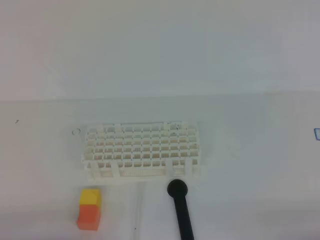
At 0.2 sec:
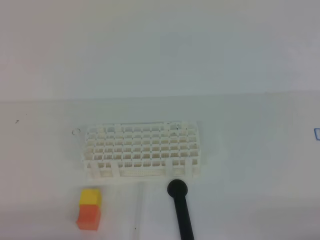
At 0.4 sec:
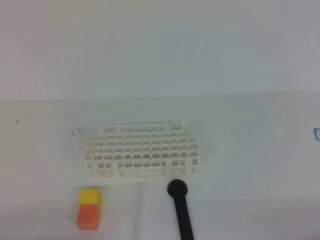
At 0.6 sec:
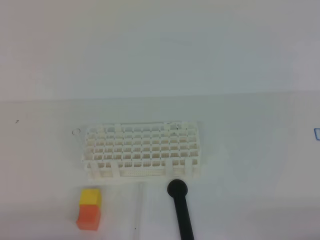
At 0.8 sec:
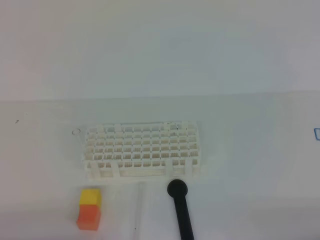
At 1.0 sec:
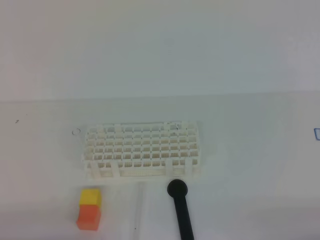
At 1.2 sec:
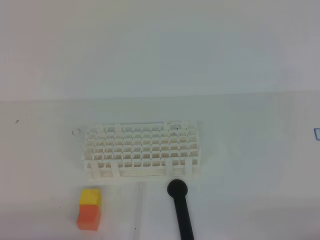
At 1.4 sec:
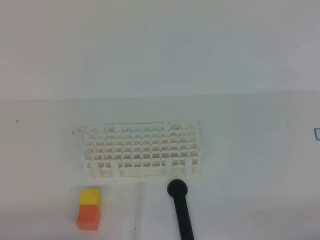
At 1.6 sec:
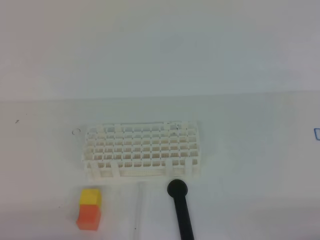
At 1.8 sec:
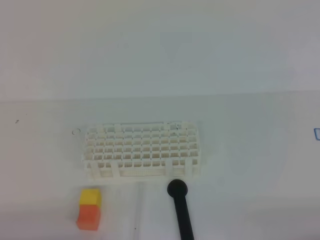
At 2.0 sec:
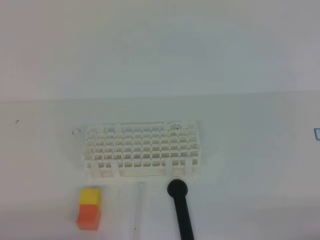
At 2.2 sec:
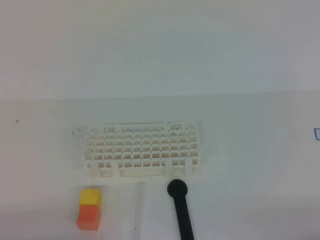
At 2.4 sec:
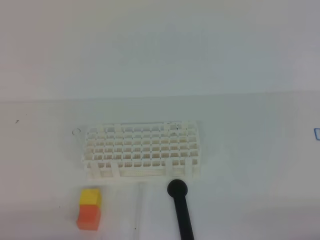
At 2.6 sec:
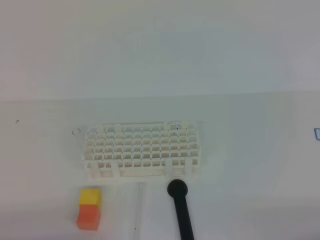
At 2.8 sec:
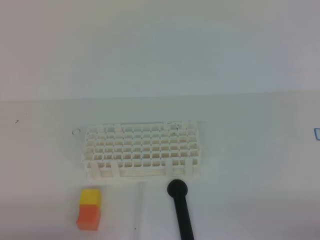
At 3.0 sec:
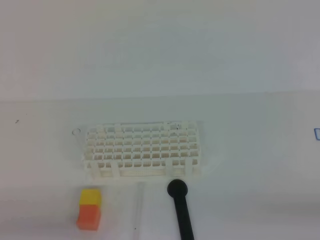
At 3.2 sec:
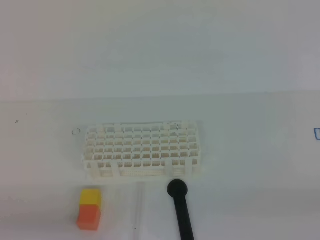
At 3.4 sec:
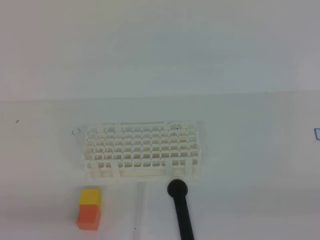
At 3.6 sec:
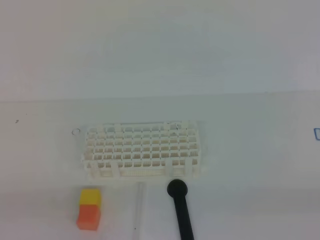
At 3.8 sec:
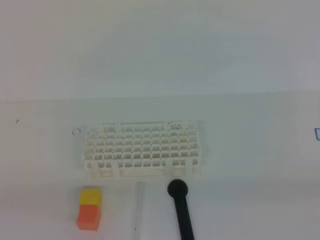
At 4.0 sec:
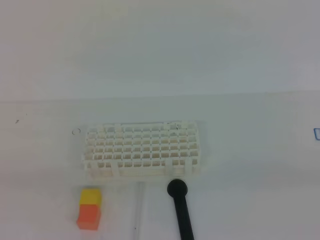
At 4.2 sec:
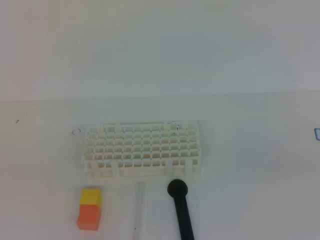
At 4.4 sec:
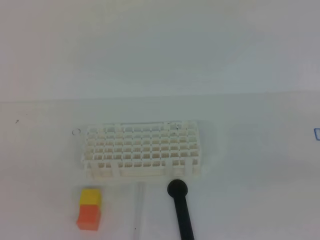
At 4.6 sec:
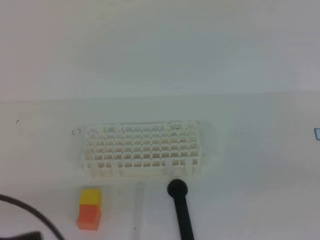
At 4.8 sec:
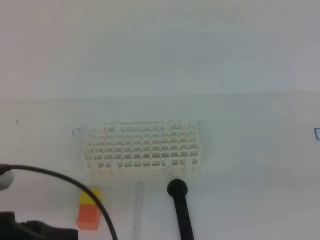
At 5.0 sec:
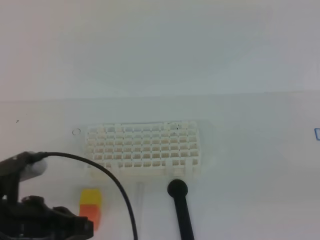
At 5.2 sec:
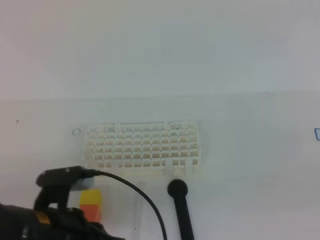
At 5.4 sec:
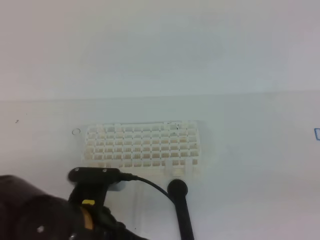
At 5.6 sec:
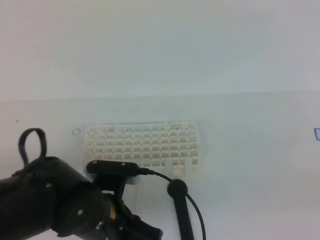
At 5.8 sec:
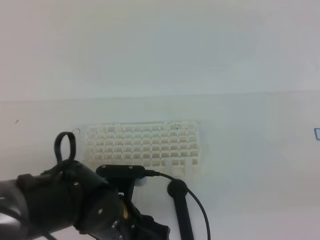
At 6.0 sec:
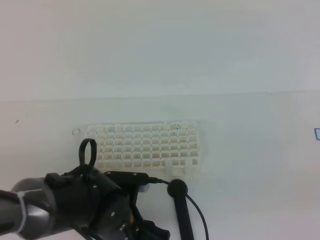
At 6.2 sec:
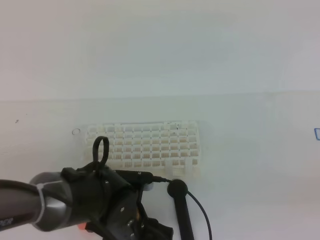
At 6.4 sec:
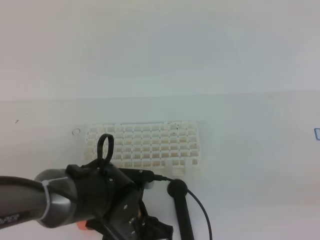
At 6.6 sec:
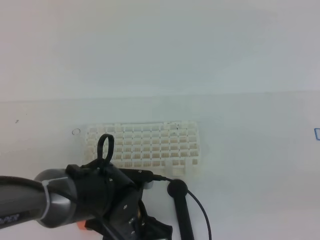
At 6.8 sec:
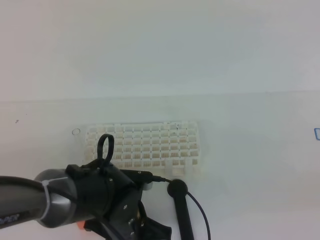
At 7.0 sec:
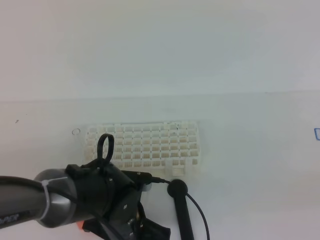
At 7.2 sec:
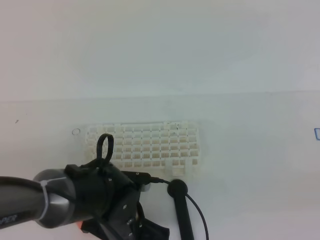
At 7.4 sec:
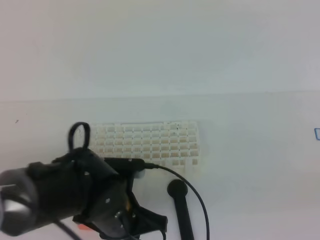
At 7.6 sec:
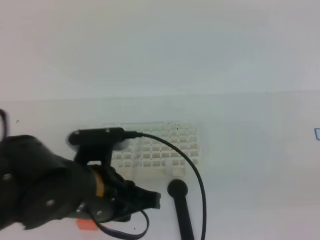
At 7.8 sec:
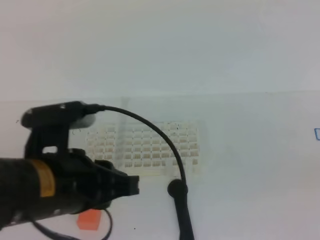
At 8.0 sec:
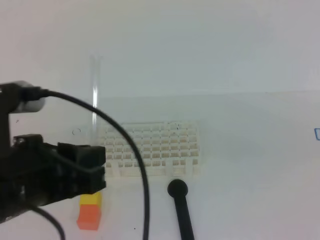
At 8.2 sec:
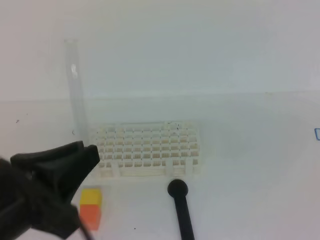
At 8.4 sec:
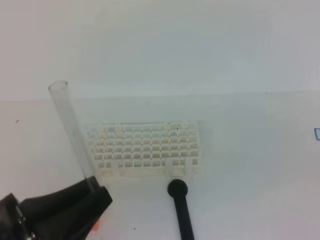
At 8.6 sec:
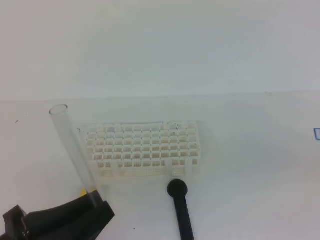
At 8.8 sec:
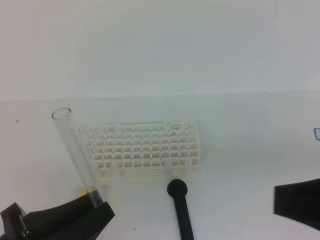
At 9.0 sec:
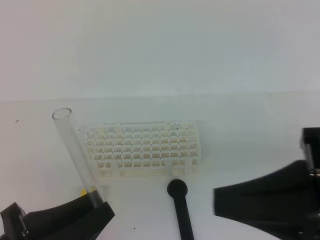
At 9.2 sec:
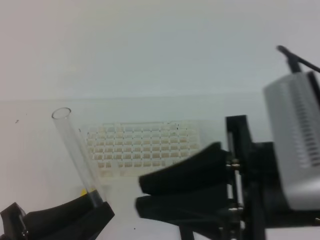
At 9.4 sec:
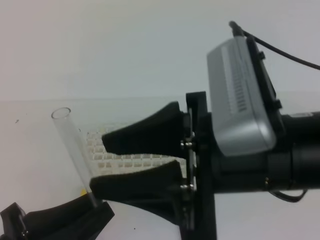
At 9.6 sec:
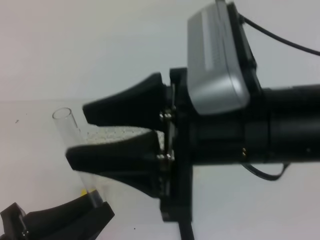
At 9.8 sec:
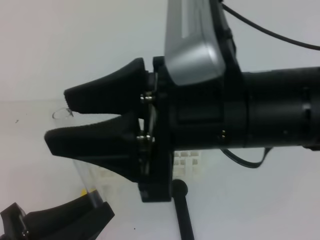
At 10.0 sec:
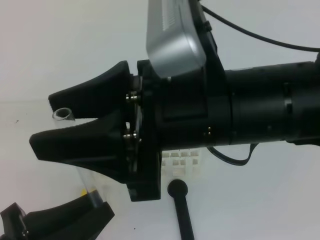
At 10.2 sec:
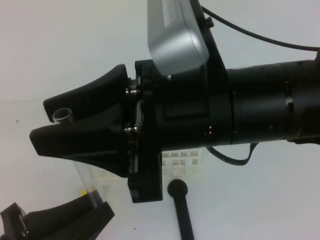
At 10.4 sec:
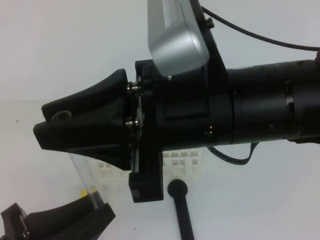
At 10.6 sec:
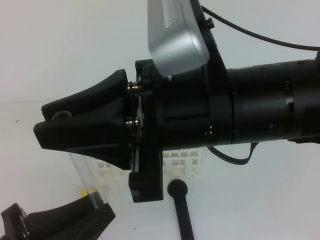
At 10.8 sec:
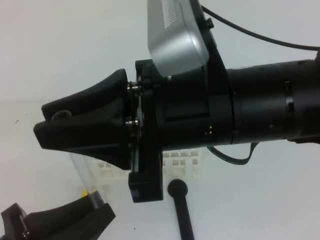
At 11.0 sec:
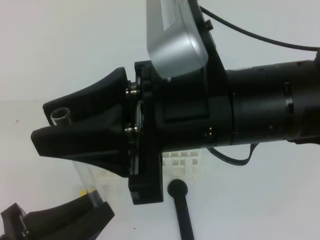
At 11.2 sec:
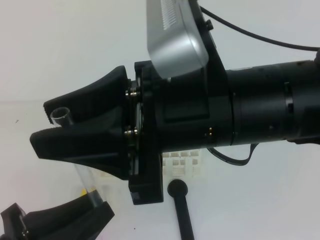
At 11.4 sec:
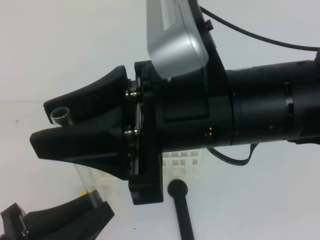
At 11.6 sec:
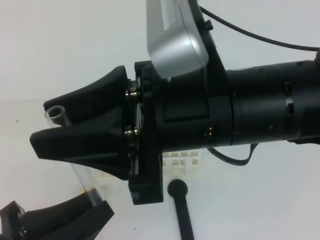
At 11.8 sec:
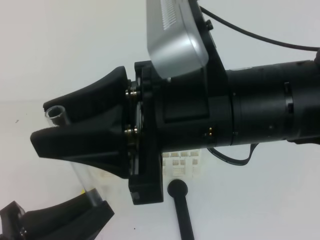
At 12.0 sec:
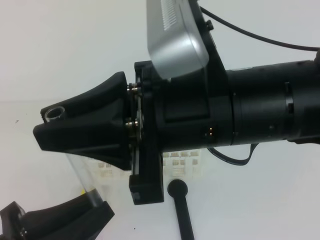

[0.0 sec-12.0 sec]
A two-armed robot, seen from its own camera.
4.4 sec to 6.0 sec: The left gripper is displaced to the right, downward and forward by approximately 30 cm, and opens.
6.0 sec to 7.6 sec: The left gripper moves upward, approximately 5 cm, and closes its fingers.
7.6 sec to 9.0 sec: The left gripper travels backward and to the left by roughly 15 cm, while the right gripper is displaced to the left by about 10 cm.
9.0 sec to 10.4 sec: The right gripper heads to the left and forward, covering roughly 20 cm, and opens up.
10.4 sec to 12.0 sec: Both grippers stay about where they are.

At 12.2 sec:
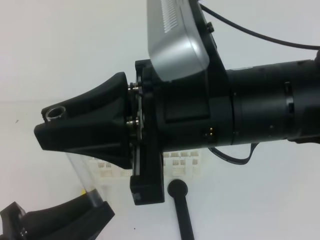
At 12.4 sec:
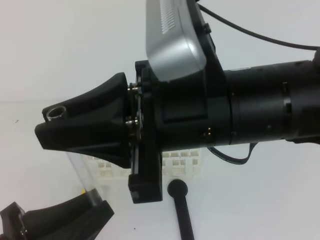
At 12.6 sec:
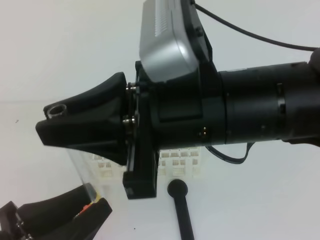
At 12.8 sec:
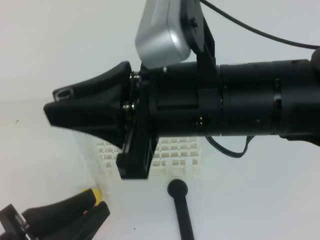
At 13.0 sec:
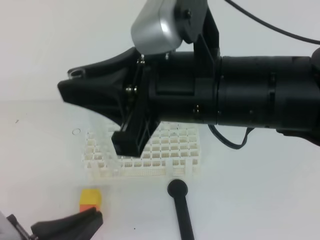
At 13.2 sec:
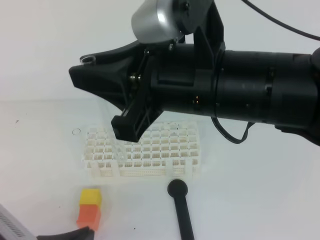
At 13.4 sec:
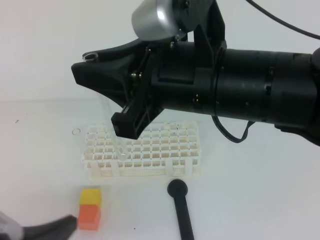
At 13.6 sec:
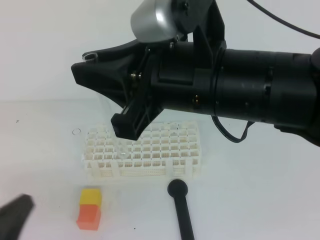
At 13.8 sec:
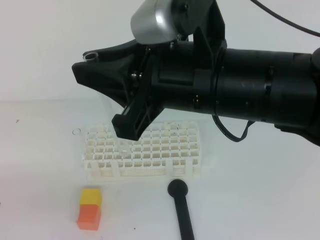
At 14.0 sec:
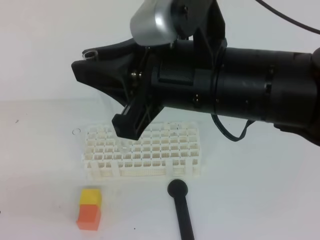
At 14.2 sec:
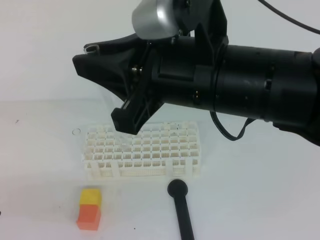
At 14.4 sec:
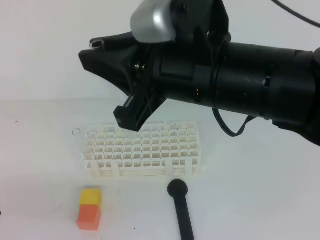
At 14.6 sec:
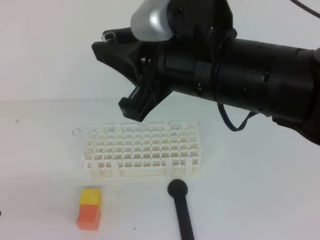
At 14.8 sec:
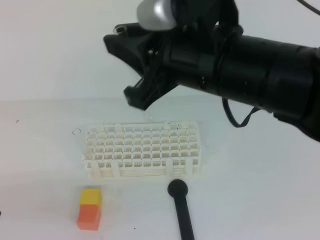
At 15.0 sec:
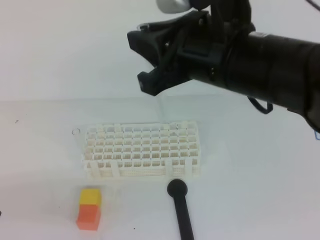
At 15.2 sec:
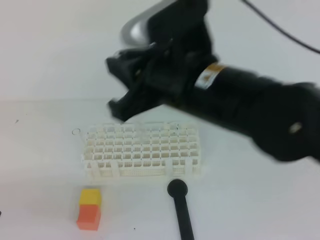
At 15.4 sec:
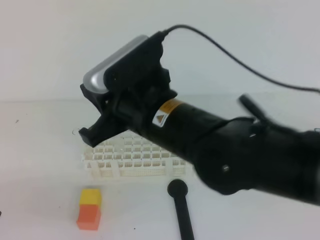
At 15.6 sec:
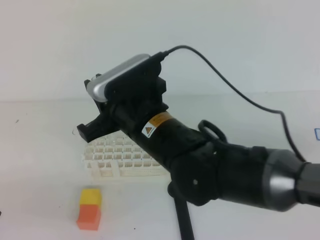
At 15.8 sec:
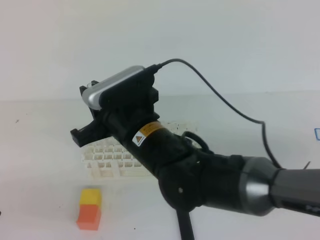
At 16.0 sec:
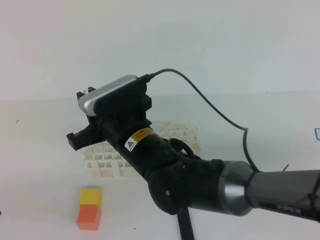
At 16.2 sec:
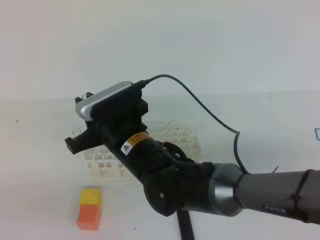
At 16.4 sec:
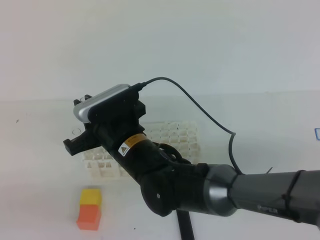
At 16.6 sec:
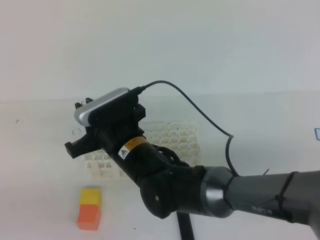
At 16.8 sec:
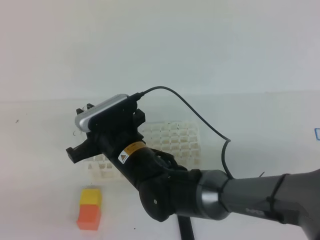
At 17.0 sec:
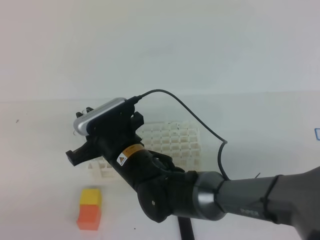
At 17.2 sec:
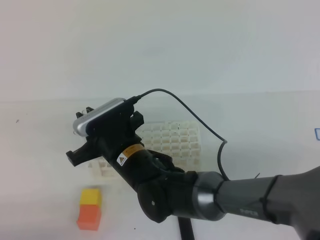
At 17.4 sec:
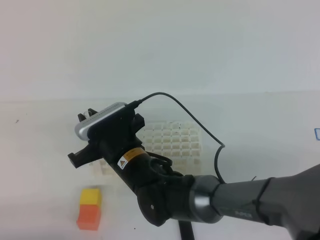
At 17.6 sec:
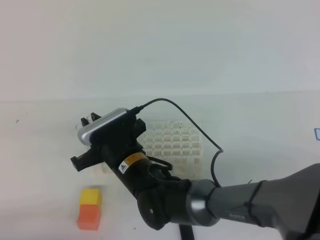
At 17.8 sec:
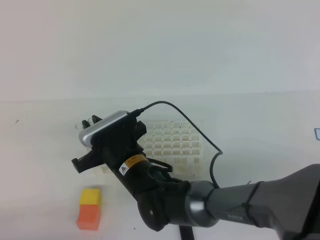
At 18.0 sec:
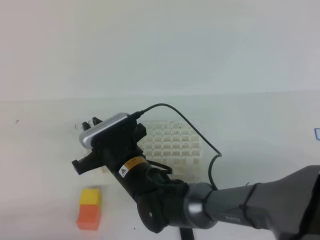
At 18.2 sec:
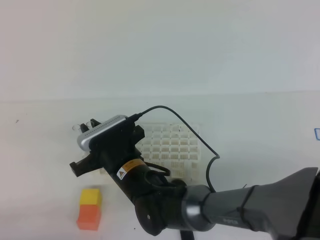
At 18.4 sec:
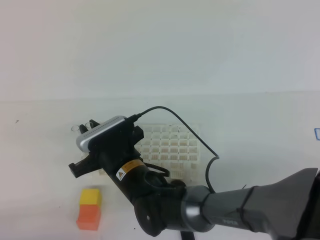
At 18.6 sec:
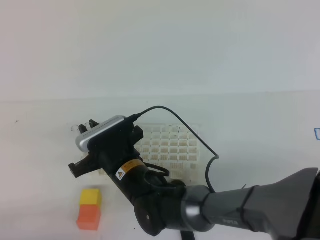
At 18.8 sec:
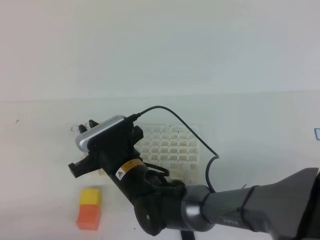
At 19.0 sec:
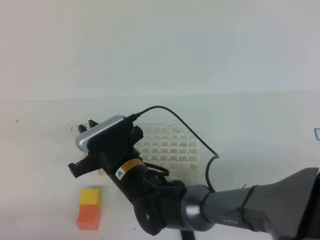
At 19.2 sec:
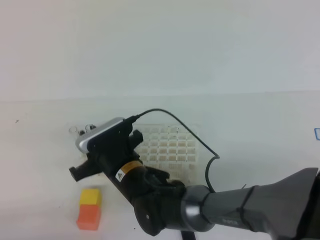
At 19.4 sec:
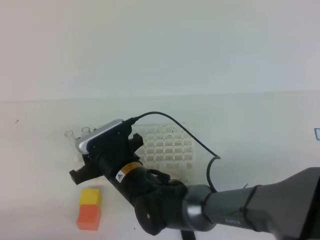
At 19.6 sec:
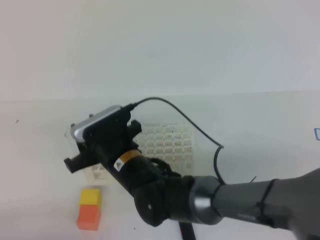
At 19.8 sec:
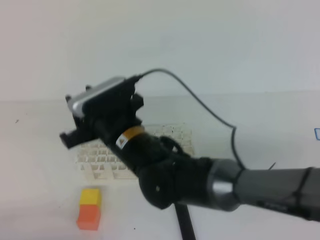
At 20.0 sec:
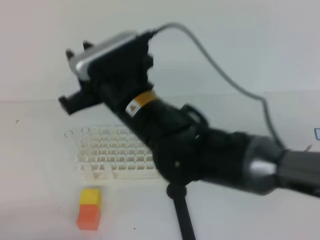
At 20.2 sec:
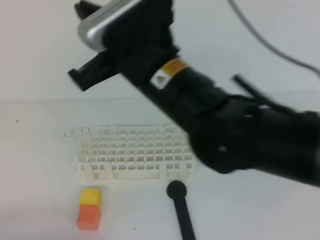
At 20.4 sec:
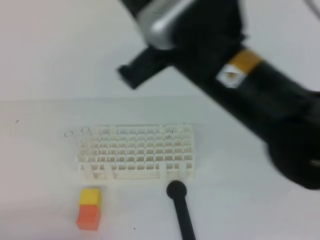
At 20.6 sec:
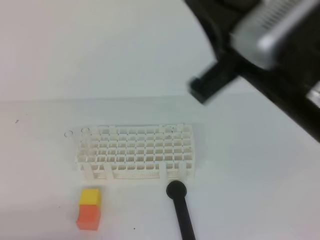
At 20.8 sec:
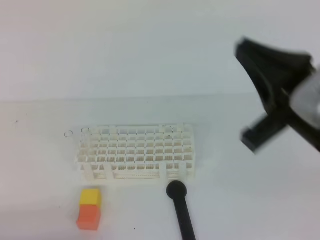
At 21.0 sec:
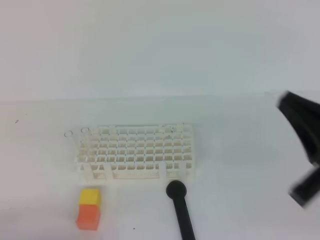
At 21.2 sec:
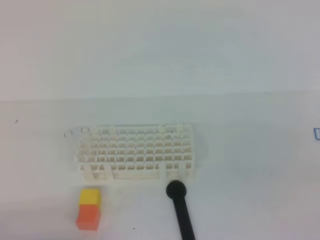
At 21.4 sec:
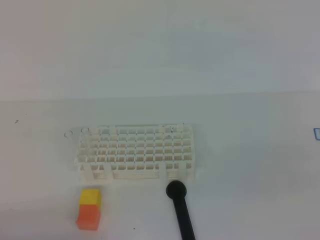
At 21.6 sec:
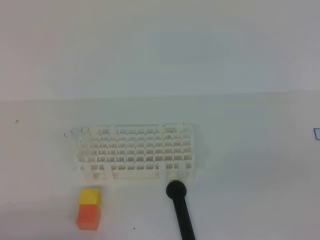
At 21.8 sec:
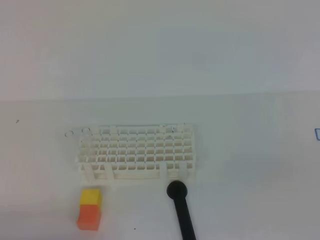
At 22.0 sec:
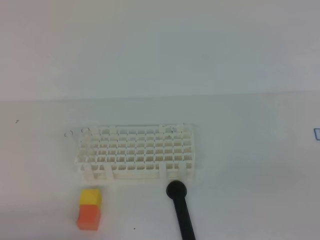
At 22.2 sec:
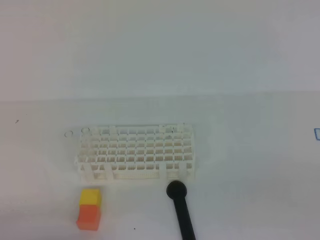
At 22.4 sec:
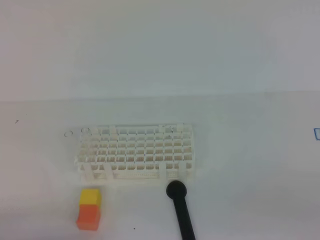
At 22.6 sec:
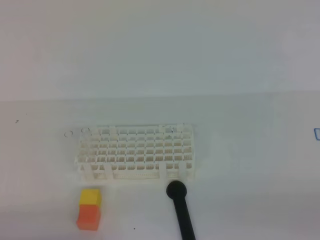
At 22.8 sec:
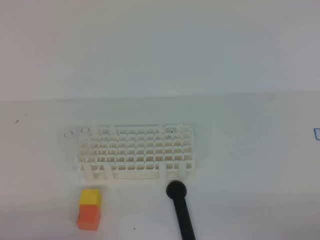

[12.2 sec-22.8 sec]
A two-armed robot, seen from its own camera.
12.2 sec to 13.8 sec: The left gripper travels to the left by some 5 cm, and opens, then closes once more.
15.2 sec to 16.8 sec: The right gripper heads downward and to the left, covering about 20 cm.
16.8 sec to 18.2 sec: Both grippers move downward, approximately 5 cm.
18.2 sec to 19.8 sec: The right gripper shifts roughly 5 cm upward, and opens its fingers.
19.8 sec to 21.2 sec: The right gripper shifts some 35 cm to the right and backward, and closes.
21.2 sec to 22.8 sec: The right gripper is displaced downward, to the right and backward by about 15 cm.
